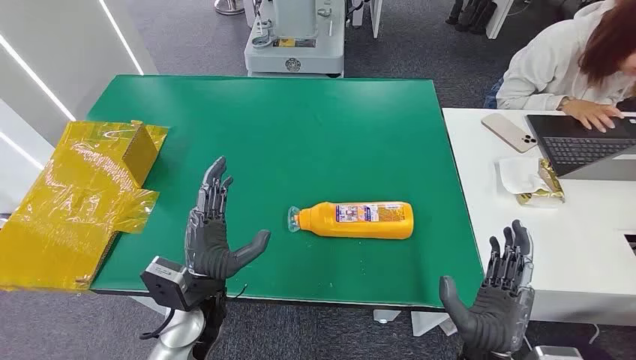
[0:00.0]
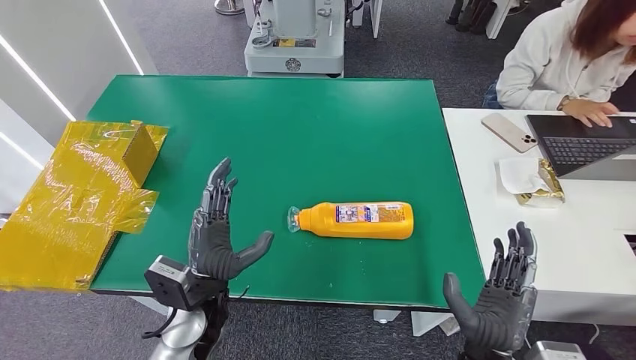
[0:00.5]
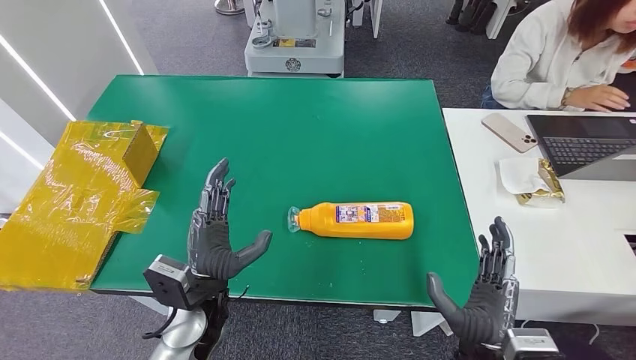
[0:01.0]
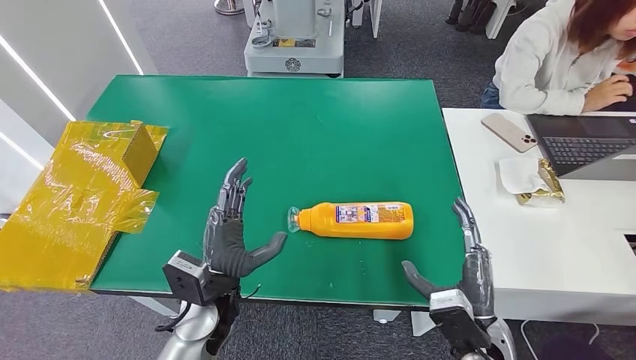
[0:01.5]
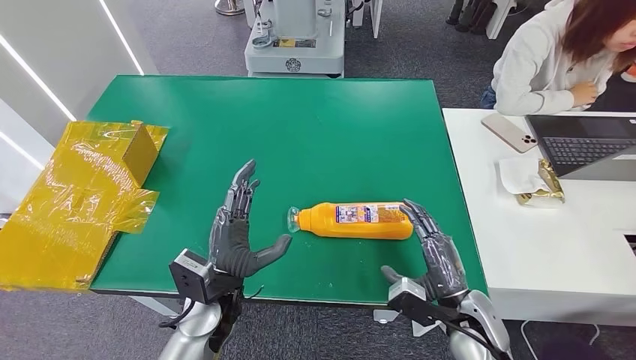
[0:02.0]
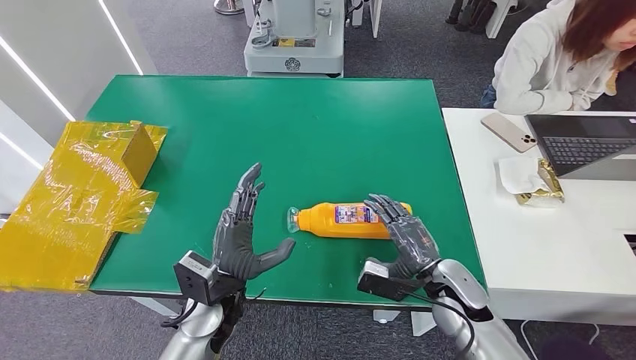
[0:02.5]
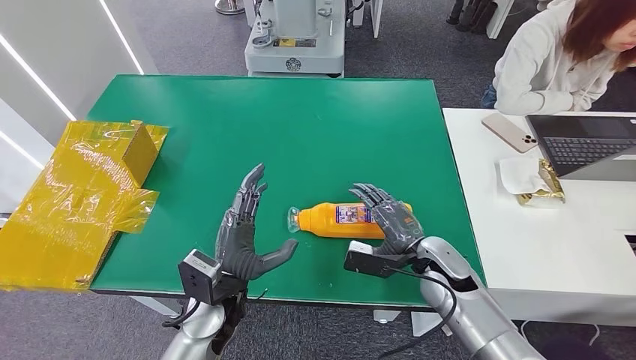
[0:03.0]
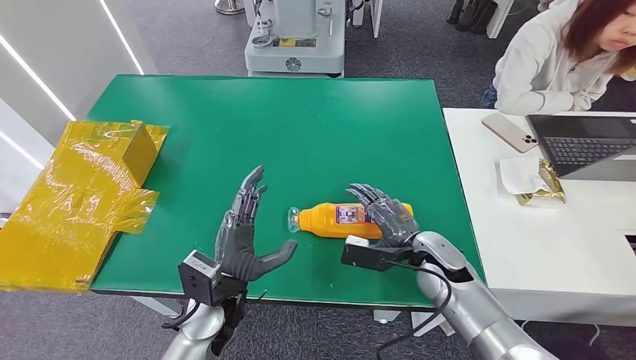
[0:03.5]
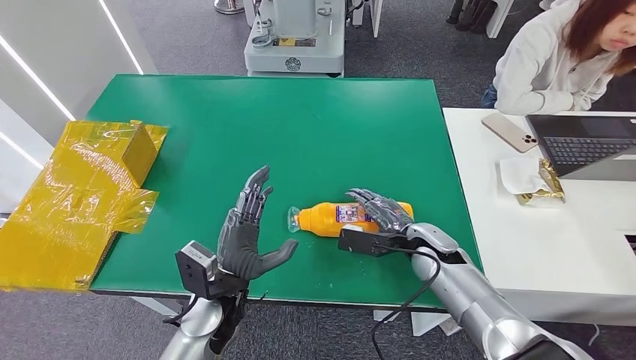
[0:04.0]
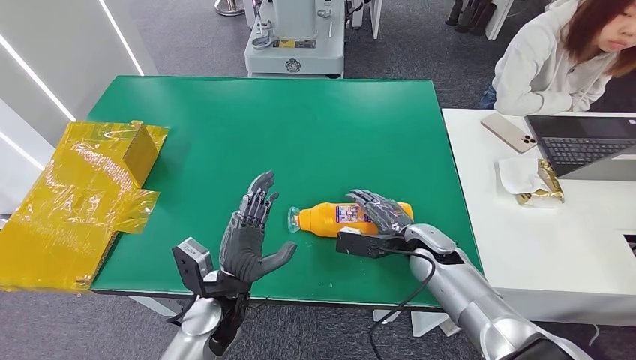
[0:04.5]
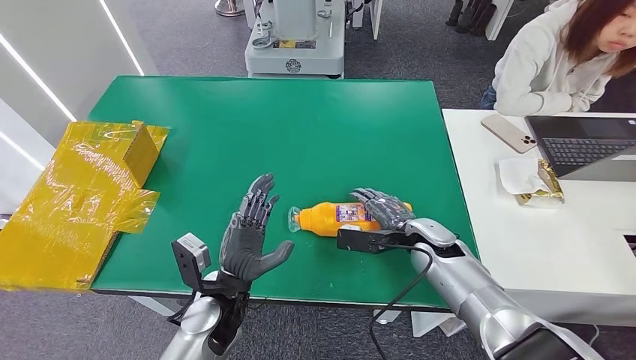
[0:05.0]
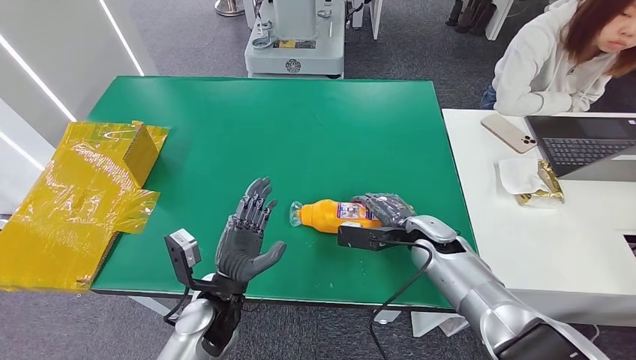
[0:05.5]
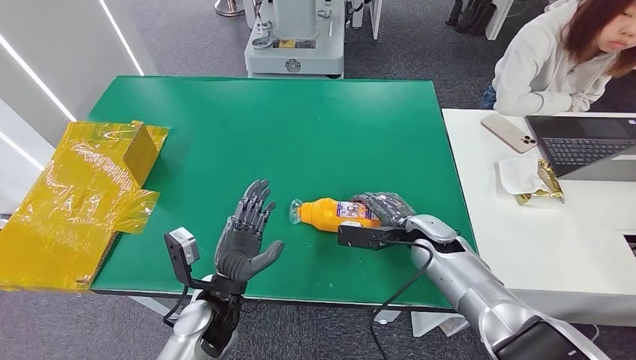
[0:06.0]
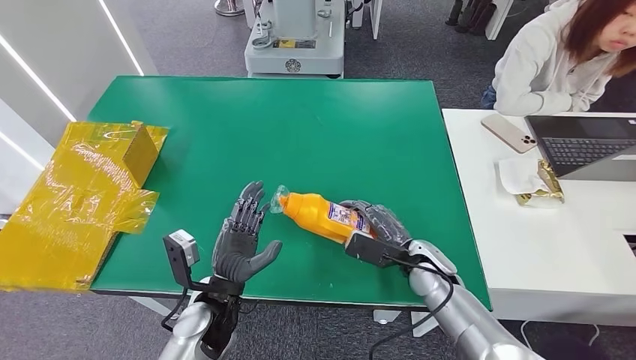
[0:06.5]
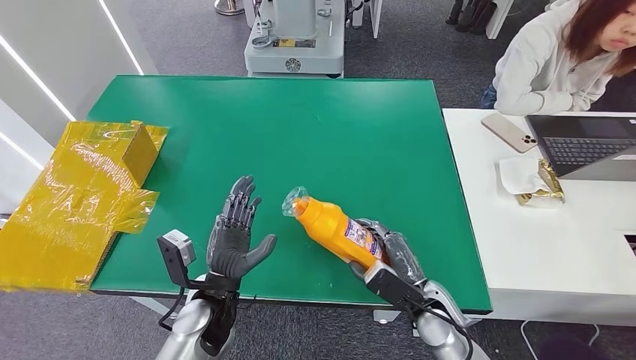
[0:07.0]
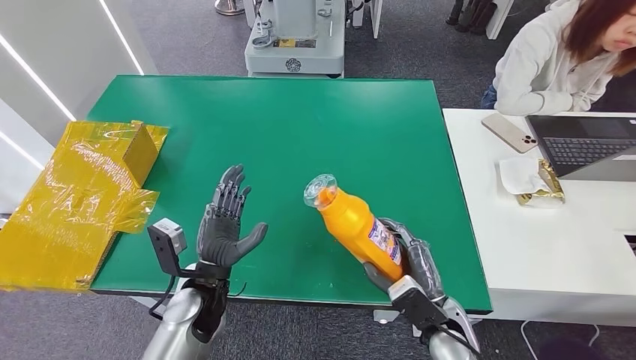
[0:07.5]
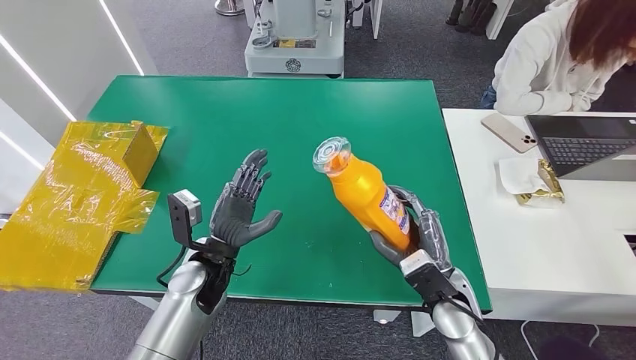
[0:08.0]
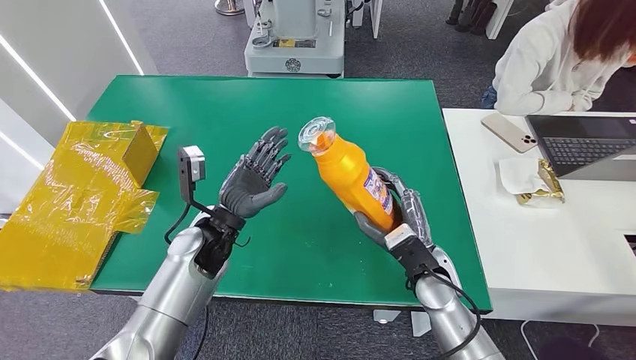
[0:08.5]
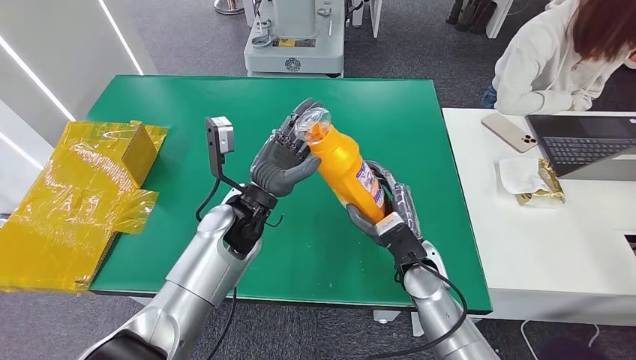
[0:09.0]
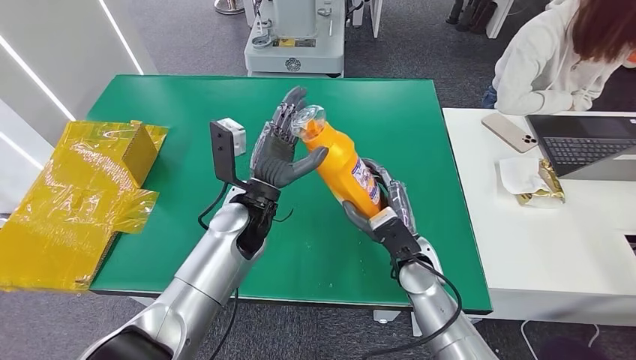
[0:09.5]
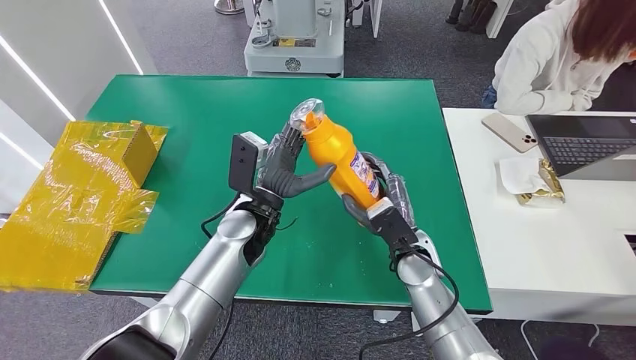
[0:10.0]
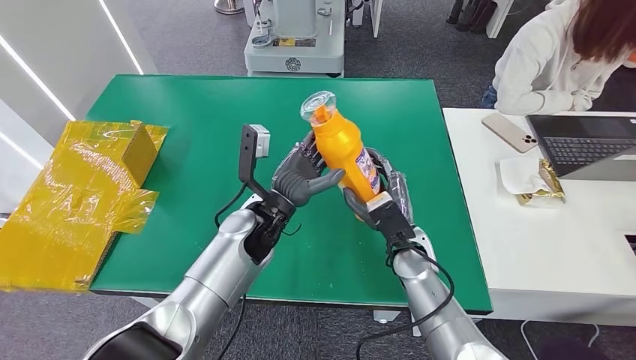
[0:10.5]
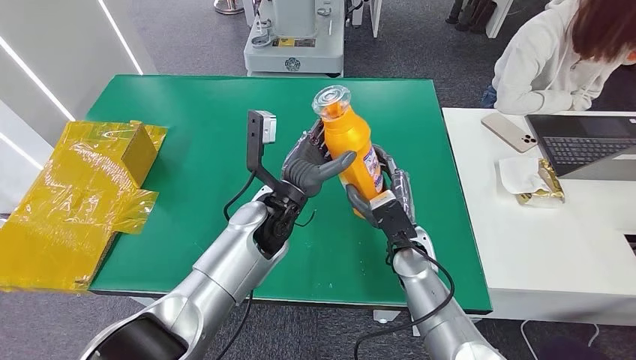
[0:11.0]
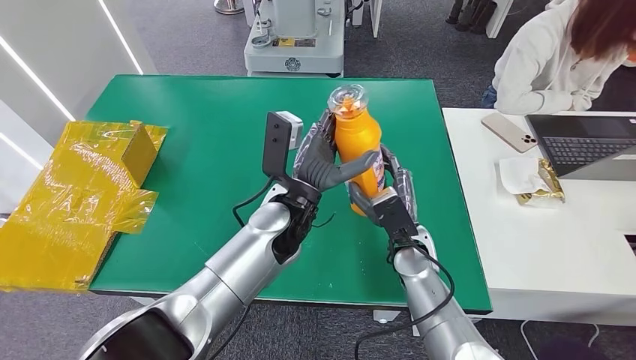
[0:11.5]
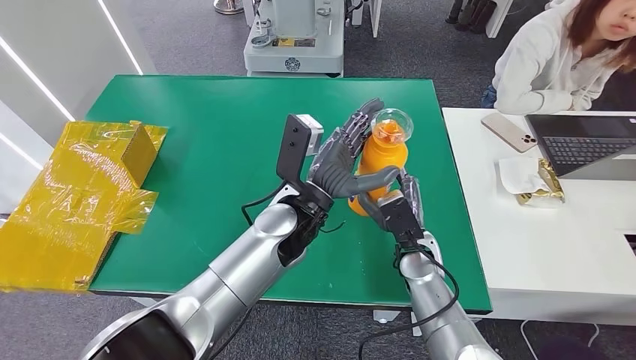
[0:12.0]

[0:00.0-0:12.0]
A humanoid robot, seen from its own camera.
Step, 0:00.0 to 0:07.5: Pick up the bottle from the table.
0:02.0 to 0:04.0: The right hand goes roughly 15 cm forward.
0:04.0 to 0:06.0: The hands make only small movements.
0:06.0 to 0:08.0: The right hand travels backward by approximately 10 cm, while the left hand shifts about 5 cm forward.
0:08.0 to 0:10.0: The left hand is displaced to the right, forward and upward by roughly 10 cm. Meanwhile the right hand heads forward and to the left, covering approximately 10 cm.
0:10.0 to 0:12.0: The left hand moves to the right, approximately 5 cm.

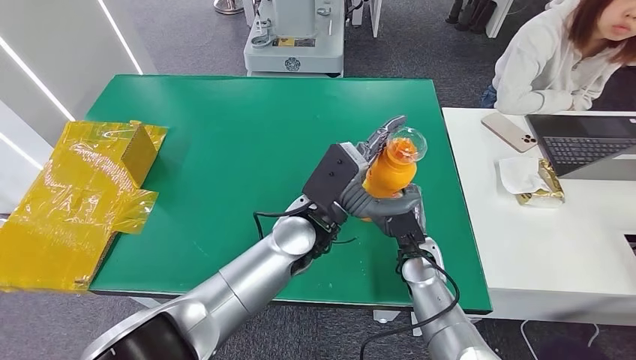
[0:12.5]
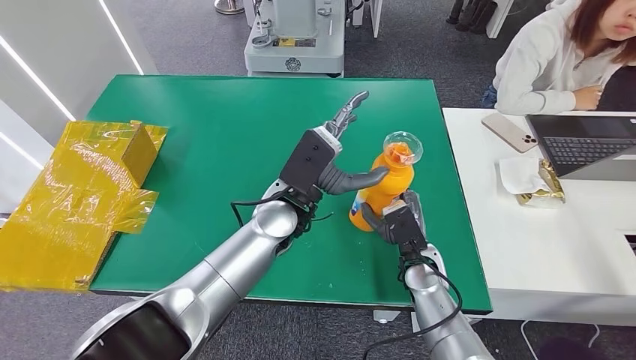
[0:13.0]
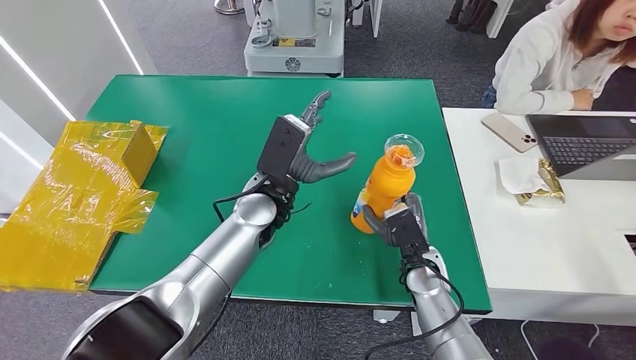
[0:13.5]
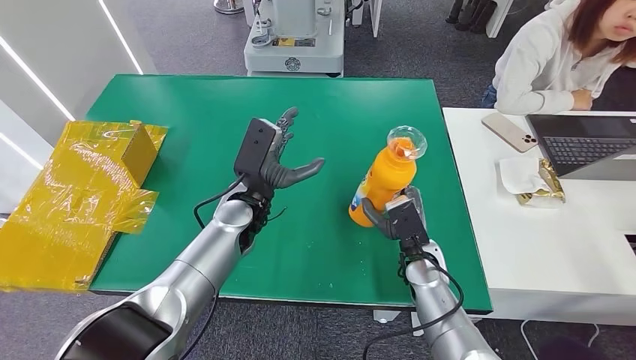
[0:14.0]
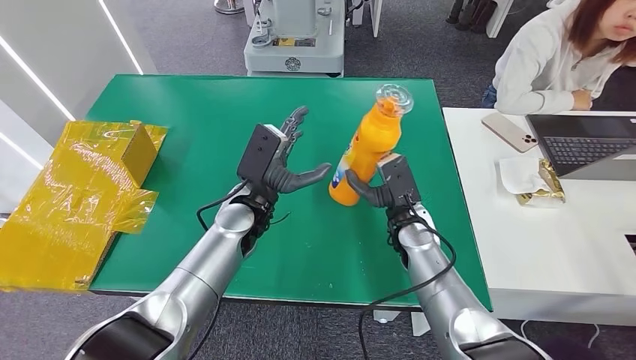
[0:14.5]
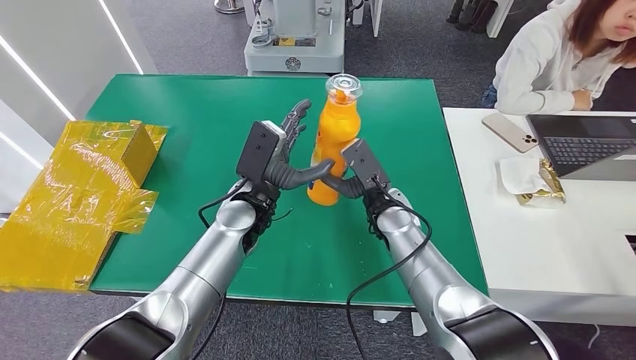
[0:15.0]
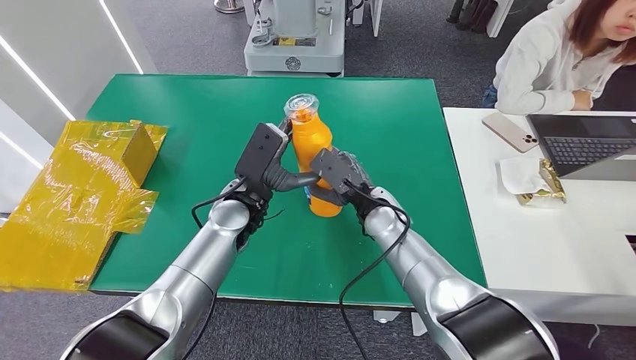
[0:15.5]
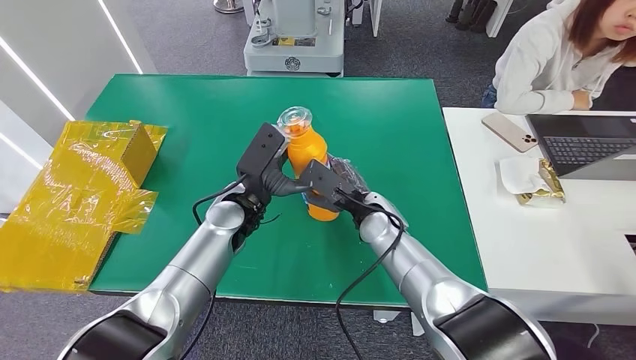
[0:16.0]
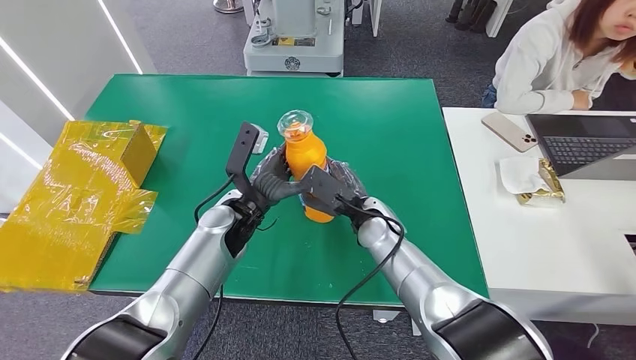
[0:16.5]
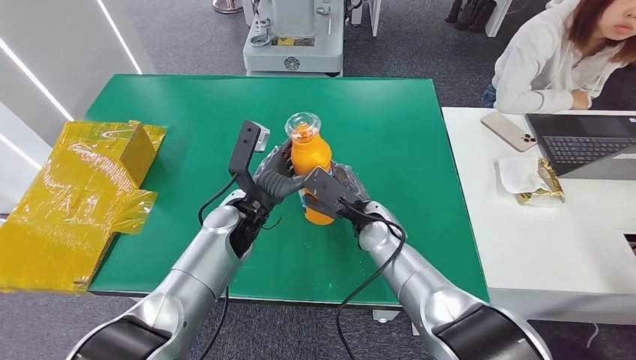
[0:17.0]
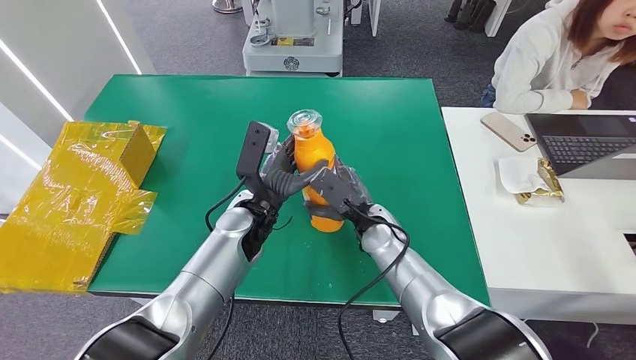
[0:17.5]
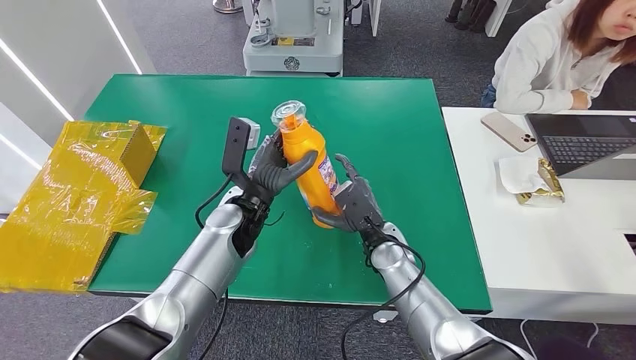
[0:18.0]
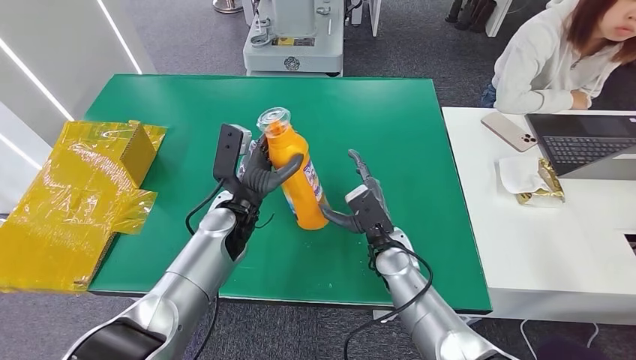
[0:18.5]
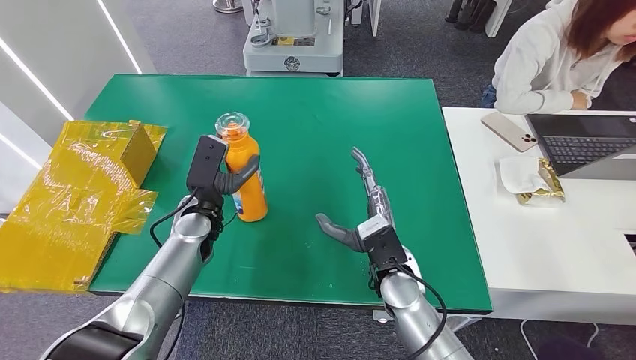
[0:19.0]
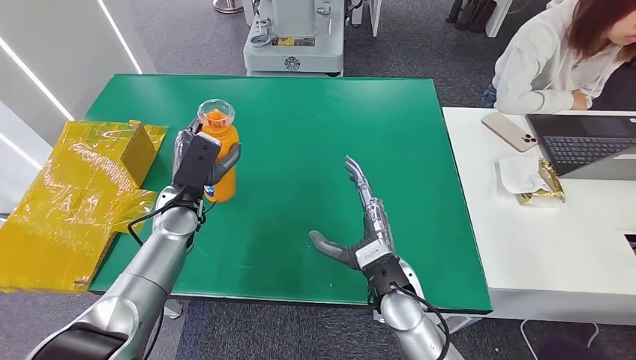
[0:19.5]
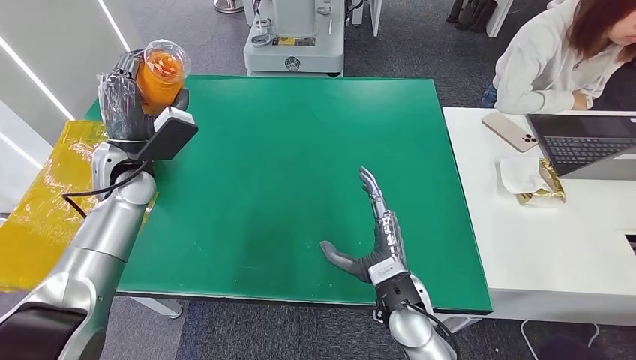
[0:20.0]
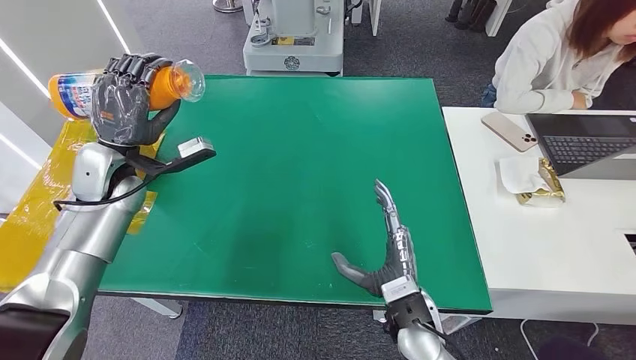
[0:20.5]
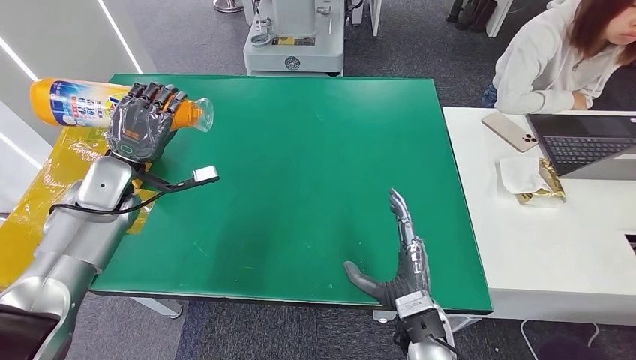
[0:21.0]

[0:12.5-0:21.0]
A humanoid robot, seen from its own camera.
0:12.5 to 0:14.5: The left hand goes roughly 10 cm to the left. Meanwhile the right hand changes place by roughly 5 cm.
0:14.5 to 0:16.5: The right hand moves to the left, some 5 cm.
0:16.5 to 0:19.0: The left hand is displaced to the left by some 10 cm, while the right hand shifts approximately 10 cm backward.
0:19.0 to 0:21.0: The left hand is displaced to the left and upward by approximately 15 cm. Meanwhile the right hand heads backward, covering about 10 cm.
